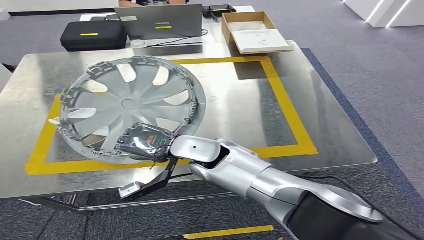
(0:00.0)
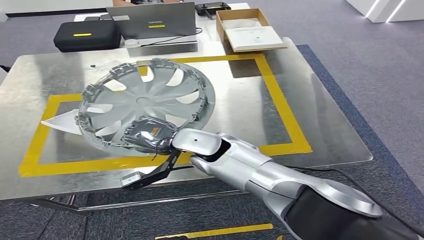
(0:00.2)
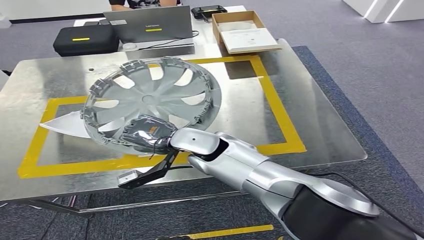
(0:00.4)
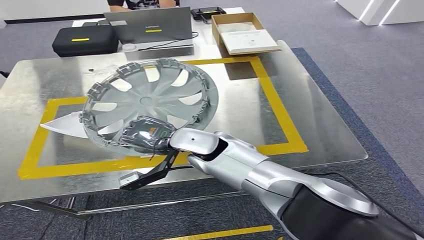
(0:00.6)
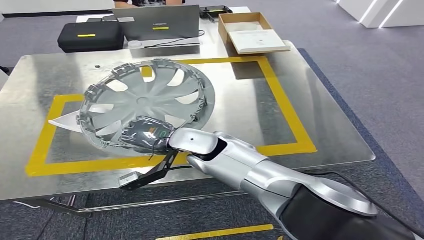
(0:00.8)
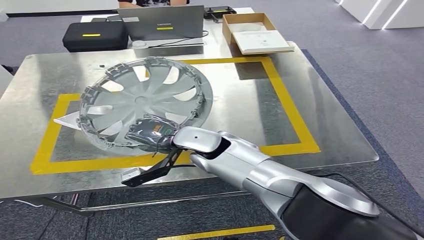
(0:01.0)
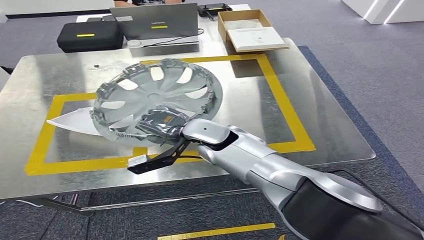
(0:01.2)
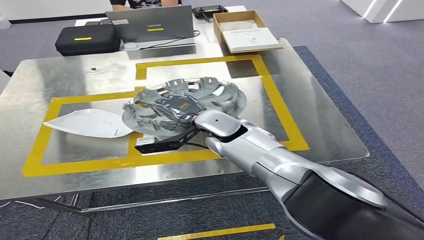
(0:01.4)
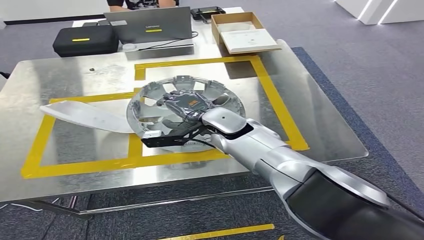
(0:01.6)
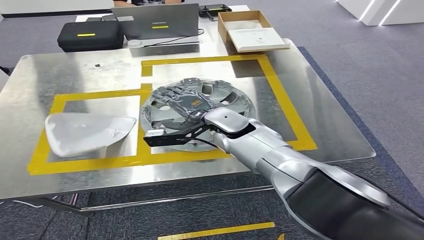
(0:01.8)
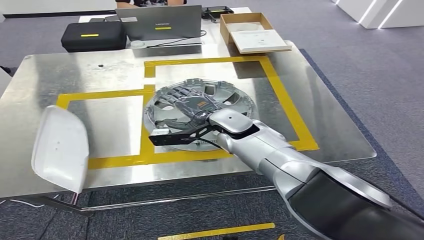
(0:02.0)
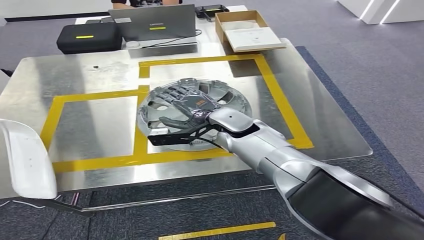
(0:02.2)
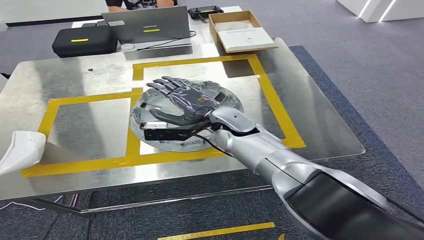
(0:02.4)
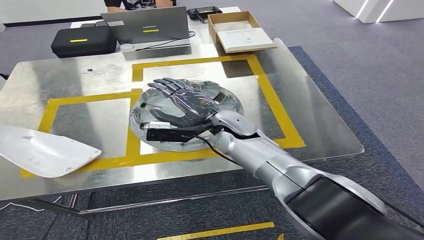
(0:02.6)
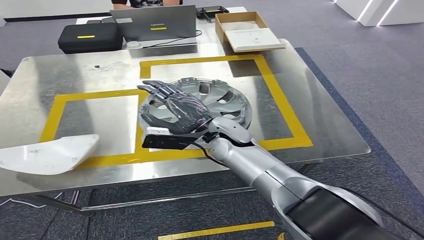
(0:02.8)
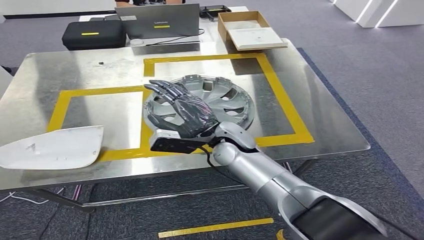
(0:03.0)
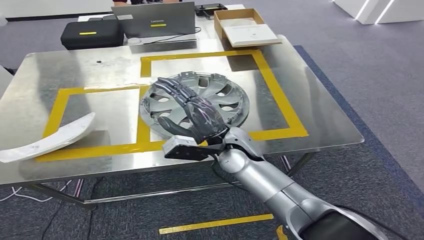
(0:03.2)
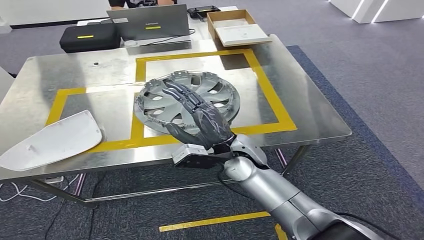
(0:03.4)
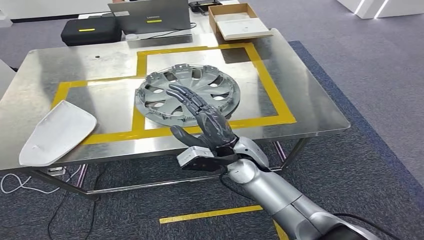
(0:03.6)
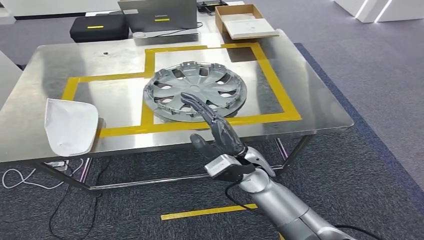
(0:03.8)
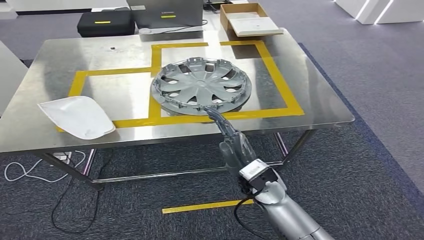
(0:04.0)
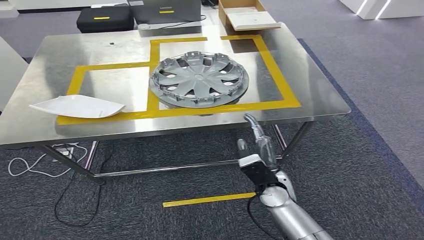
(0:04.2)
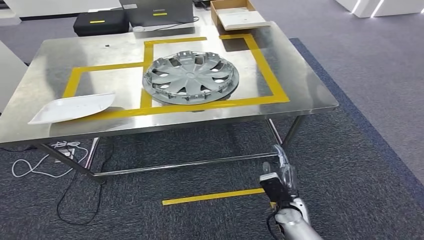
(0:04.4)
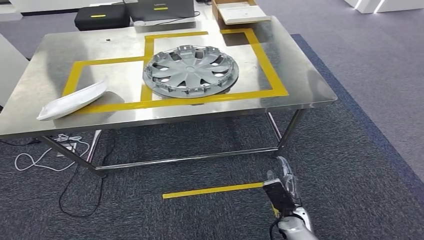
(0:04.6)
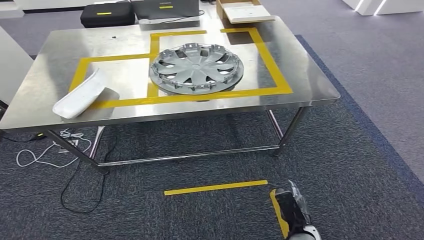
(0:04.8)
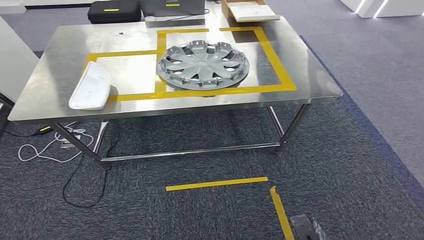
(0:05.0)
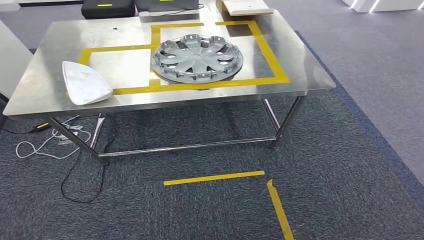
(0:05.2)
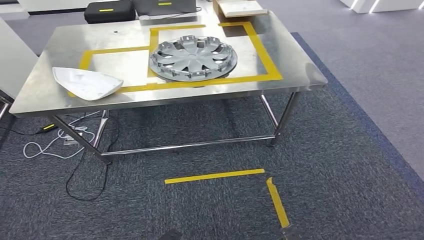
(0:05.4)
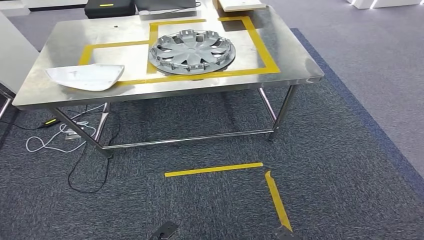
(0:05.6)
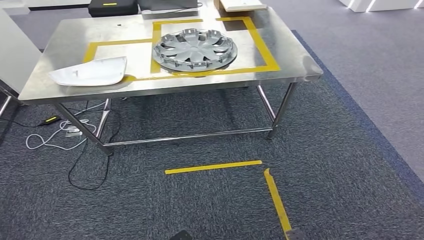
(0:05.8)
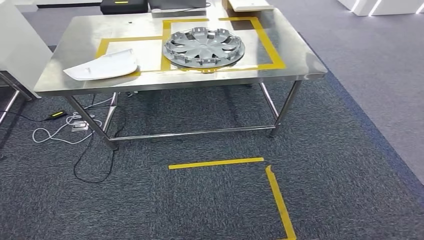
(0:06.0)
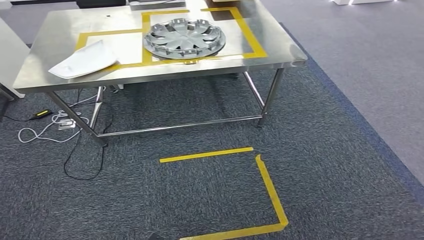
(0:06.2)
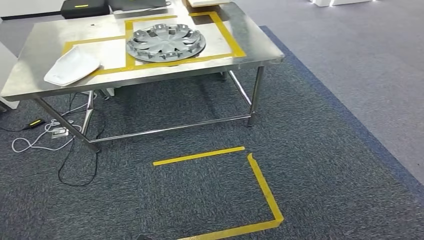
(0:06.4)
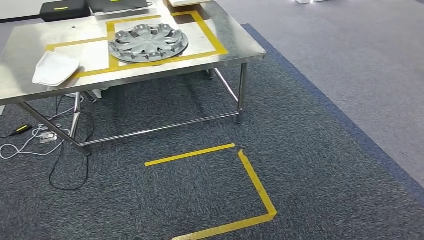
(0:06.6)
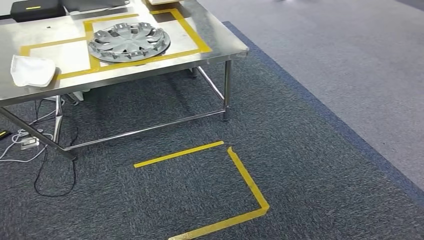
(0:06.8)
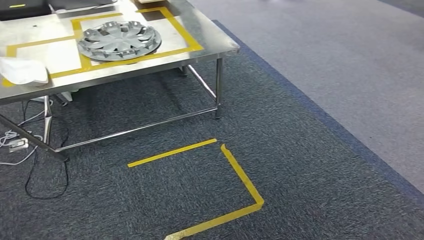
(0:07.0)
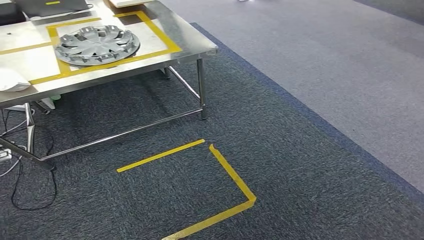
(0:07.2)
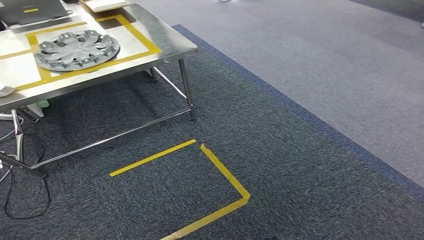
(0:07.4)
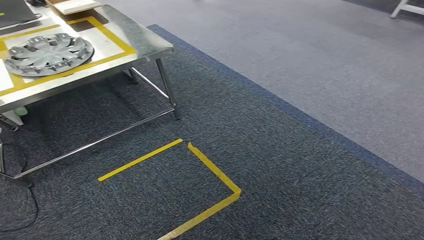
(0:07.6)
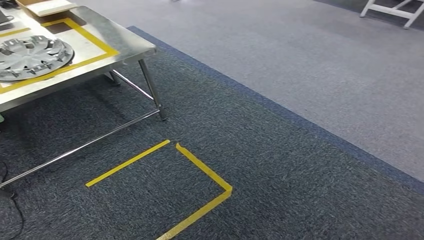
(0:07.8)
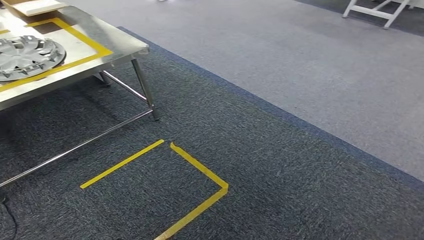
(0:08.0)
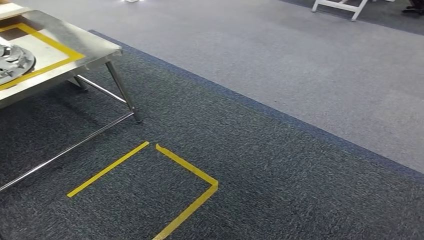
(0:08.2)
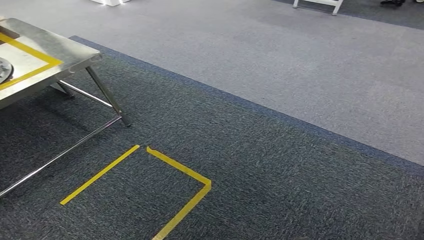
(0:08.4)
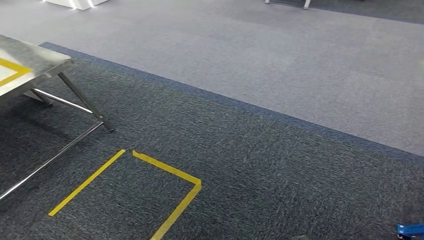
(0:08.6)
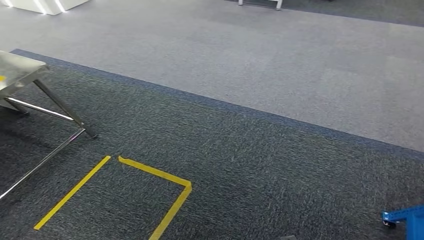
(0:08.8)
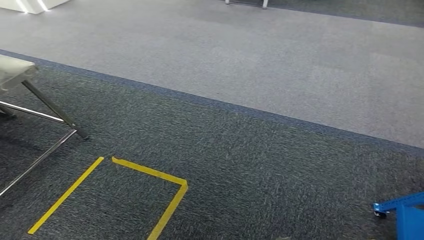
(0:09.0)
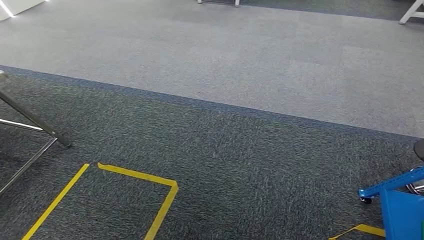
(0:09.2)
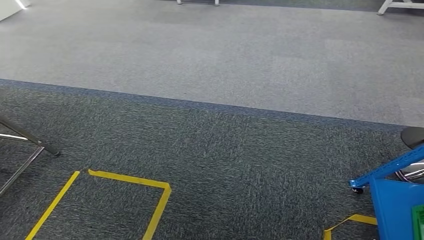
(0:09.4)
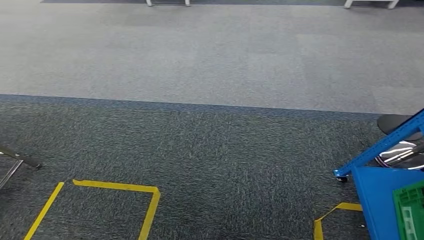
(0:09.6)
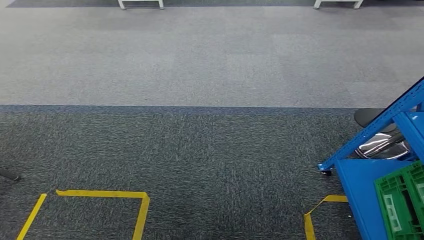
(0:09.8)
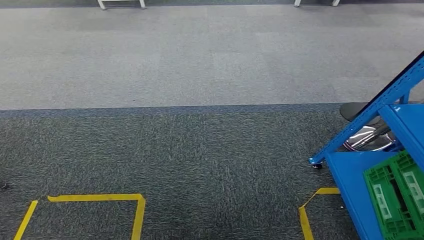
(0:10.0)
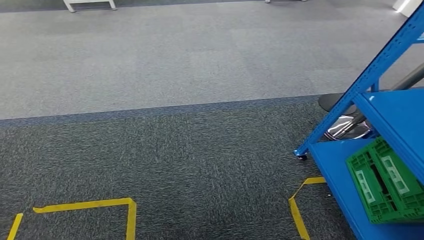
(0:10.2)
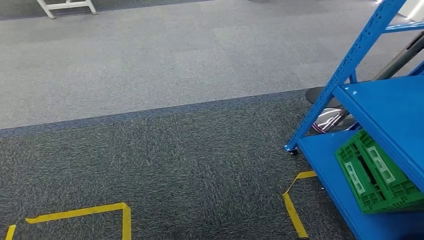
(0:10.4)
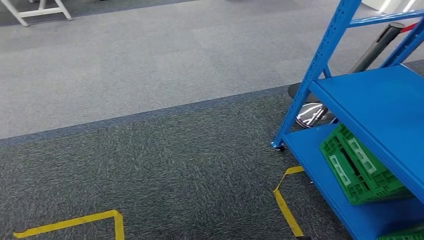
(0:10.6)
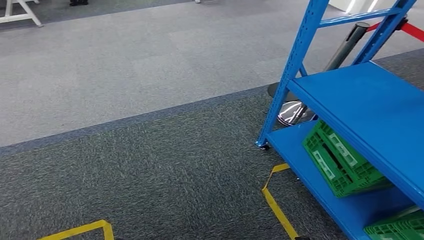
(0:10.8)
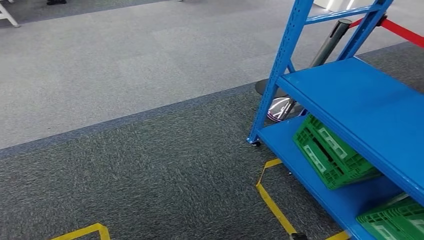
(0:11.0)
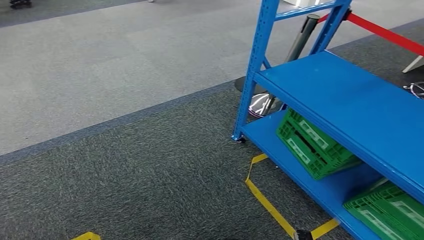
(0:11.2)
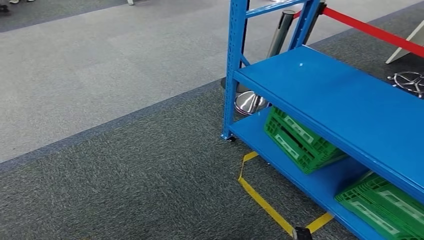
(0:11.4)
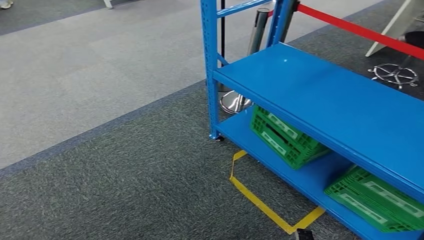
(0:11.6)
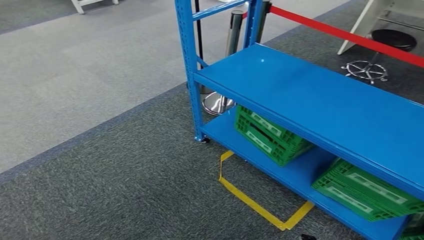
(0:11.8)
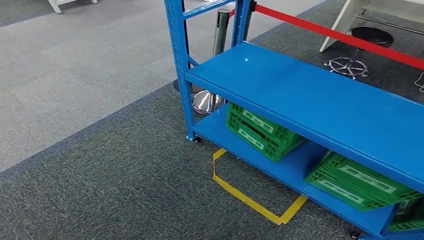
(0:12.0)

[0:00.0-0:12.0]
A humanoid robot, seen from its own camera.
Step, 0:00.0 to 0:05.8: Insert the small component into the corresponding slot on the workbench.

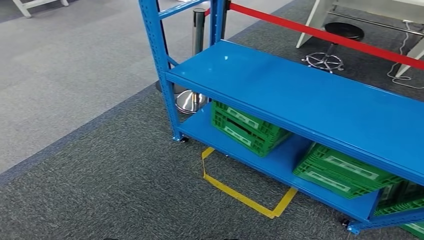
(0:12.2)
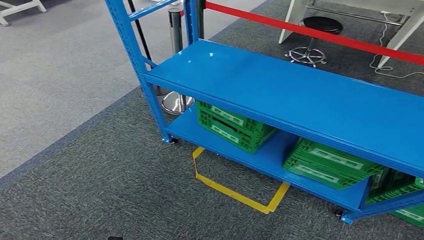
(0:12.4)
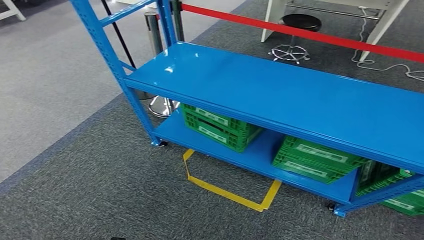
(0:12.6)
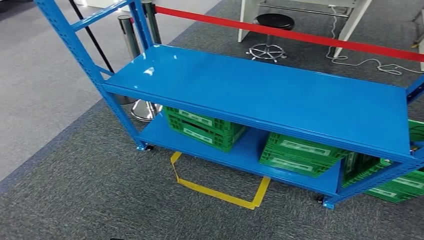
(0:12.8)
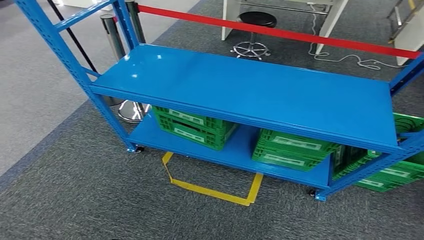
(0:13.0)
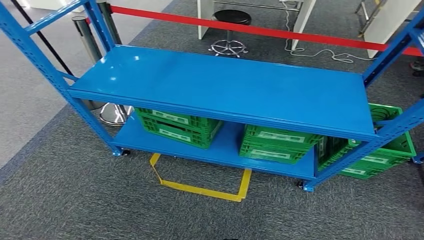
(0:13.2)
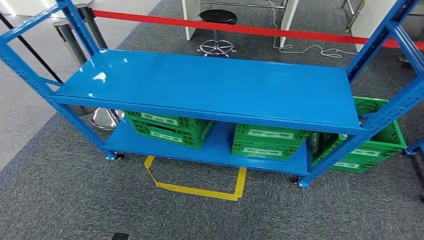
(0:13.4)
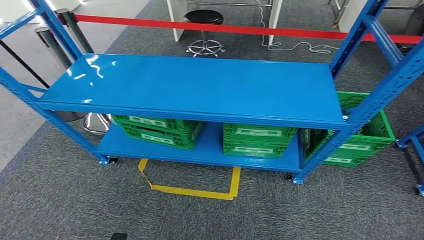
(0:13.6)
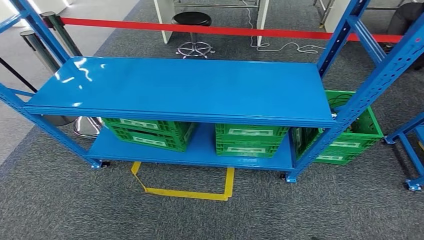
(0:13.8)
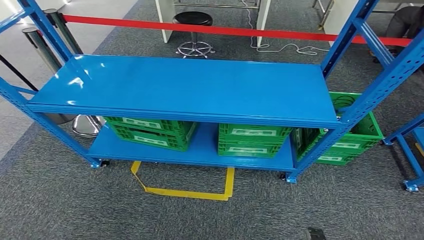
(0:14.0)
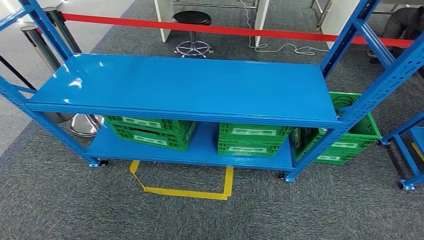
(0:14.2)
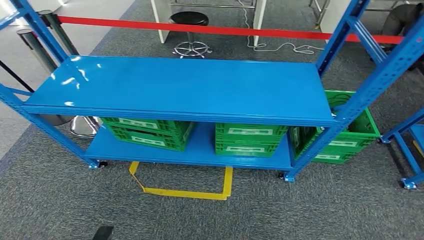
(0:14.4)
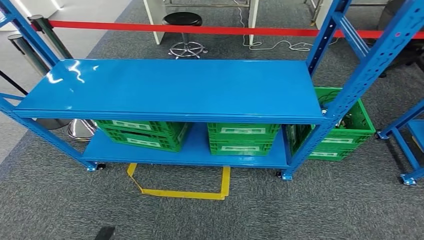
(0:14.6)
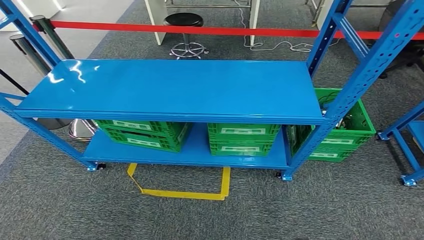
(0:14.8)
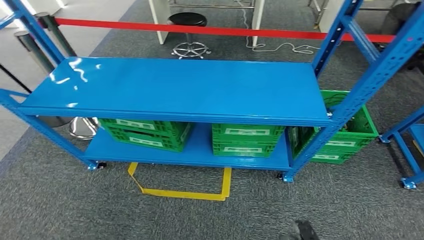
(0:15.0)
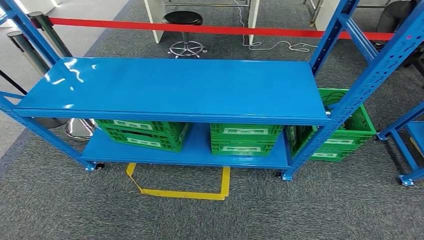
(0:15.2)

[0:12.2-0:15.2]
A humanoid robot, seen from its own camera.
Step, 0:12.2 to 0:15.2: Return to the initial position at the workbench.
0:13.8 to 0:15.2: The left hand moves forward and backward over some 15 cm, changing direction 2 times. Meanwhile the right hand moves forward and backward over some 10 cm, changing direction 2 times.

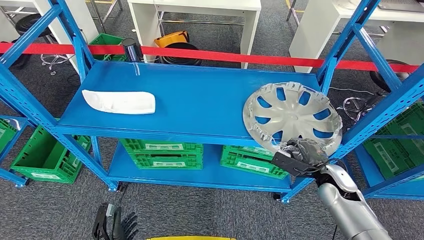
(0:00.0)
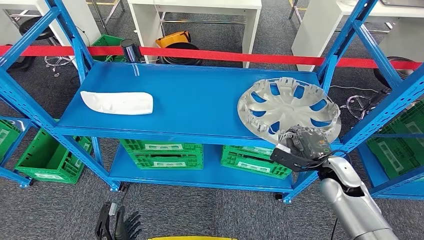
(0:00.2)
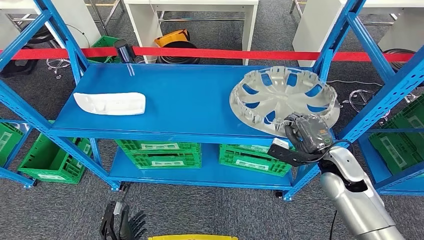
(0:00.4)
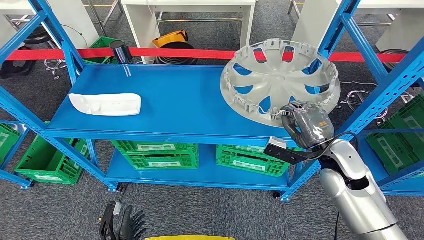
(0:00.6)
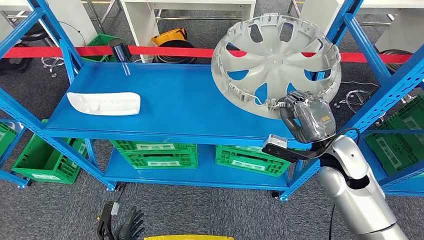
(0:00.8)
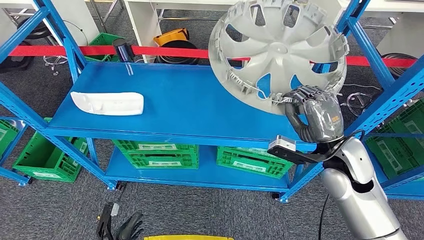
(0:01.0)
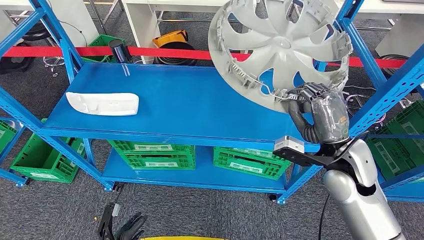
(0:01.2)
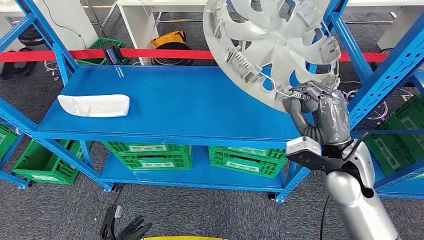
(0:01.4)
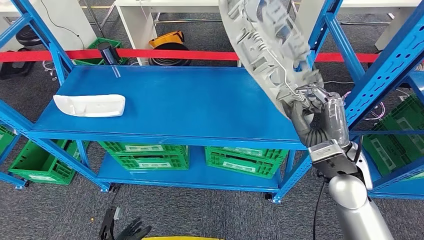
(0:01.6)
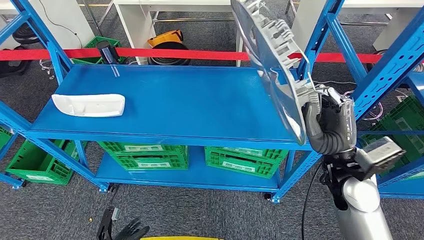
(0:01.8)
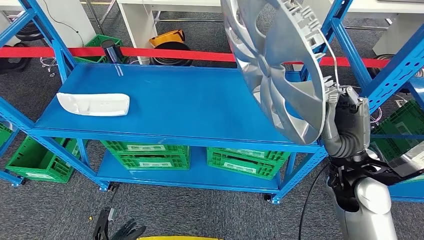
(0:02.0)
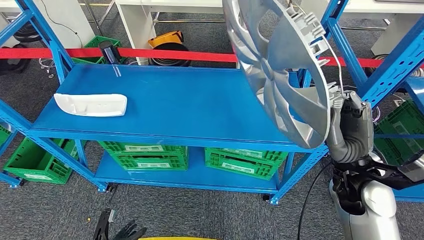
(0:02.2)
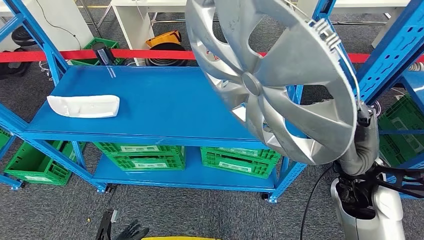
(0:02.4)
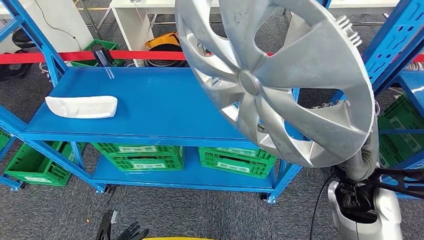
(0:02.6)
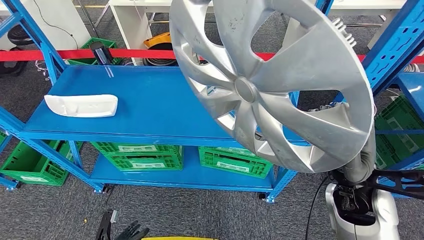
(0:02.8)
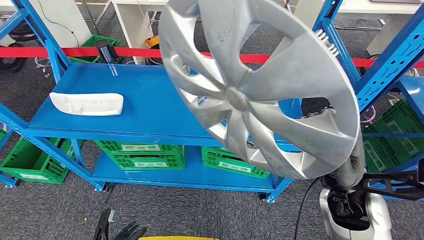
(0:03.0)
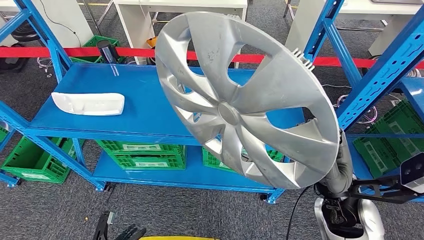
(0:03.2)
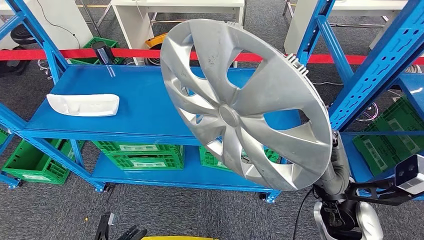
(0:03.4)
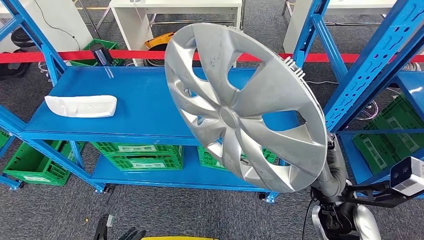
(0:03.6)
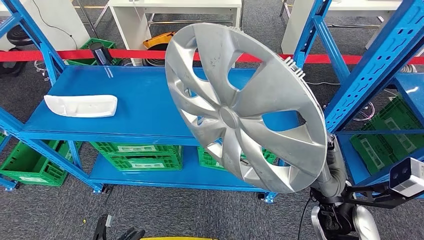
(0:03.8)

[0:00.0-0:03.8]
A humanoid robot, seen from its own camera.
Step, 0:00.0 to 0:02.4: Pick up the small component from the shelf.
